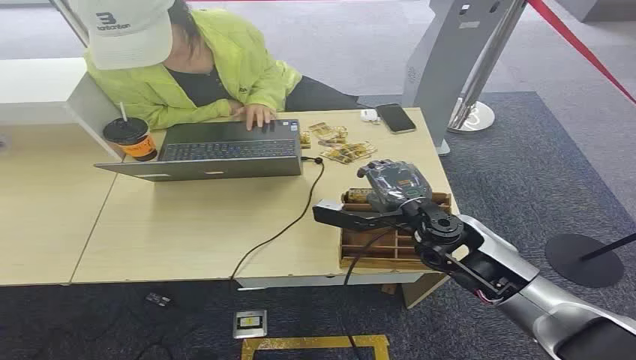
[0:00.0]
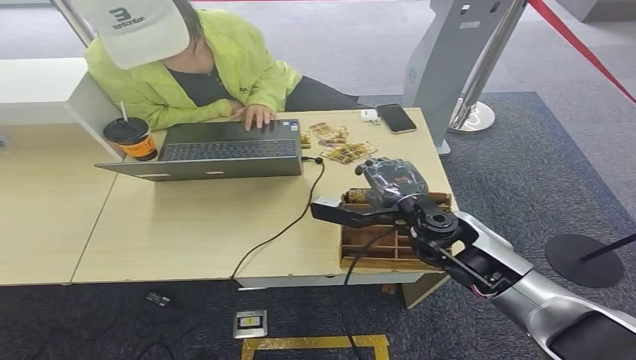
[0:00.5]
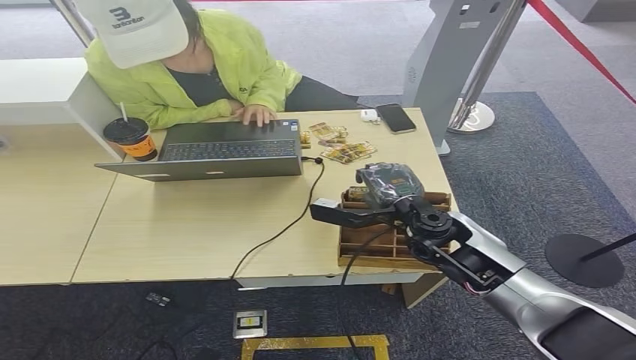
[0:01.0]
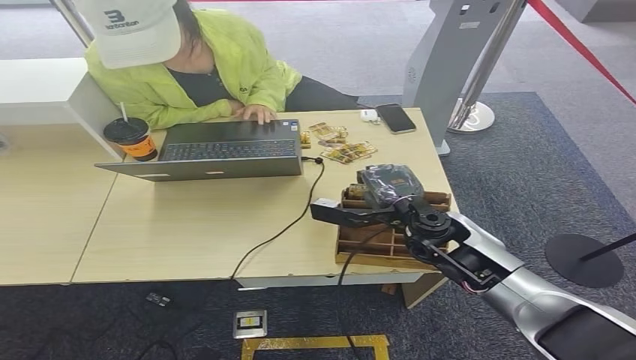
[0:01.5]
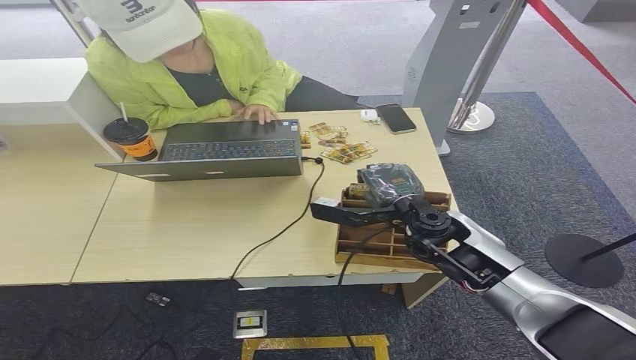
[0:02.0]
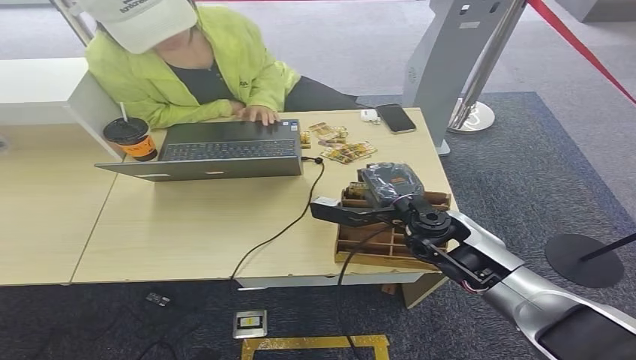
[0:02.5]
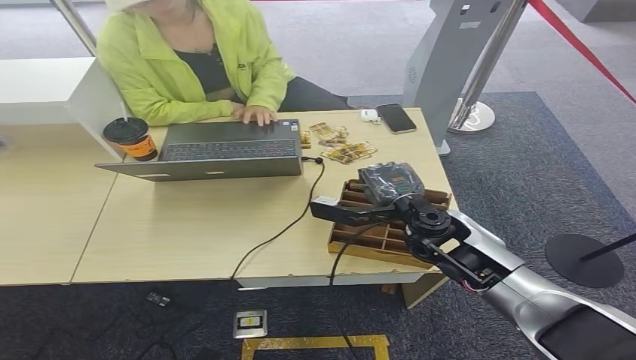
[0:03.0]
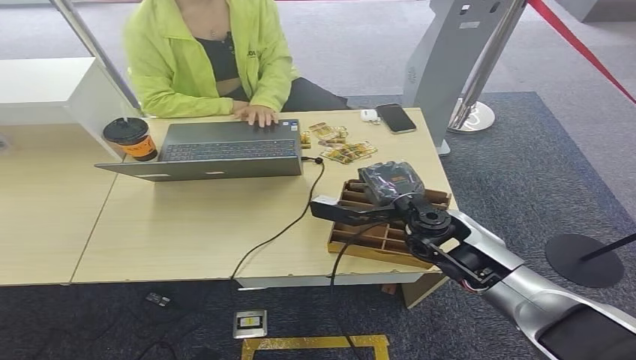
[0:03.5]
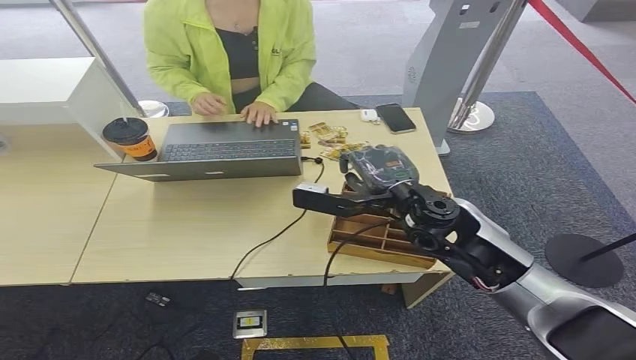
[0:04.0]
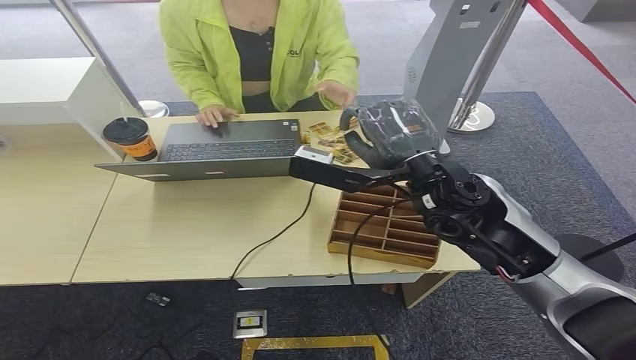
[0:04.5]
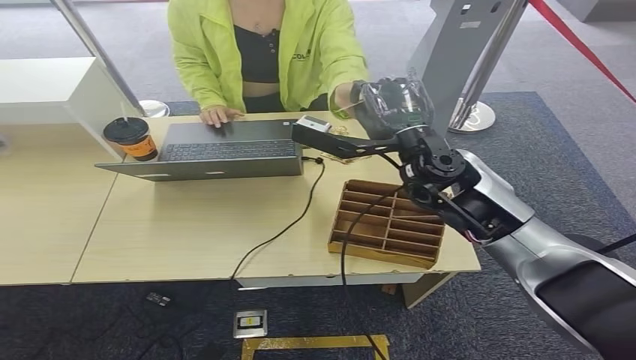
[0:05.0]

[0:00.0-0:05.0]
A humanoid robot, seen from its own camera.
Step, 0:00.0 to 0:03.5: Pick up the room card from the card holder.
Step, 0:04.0 to 0:05.0: Hand the room card to the target.
